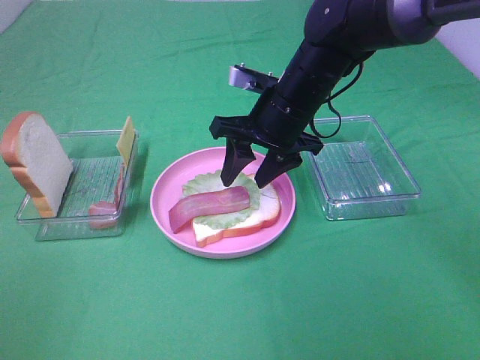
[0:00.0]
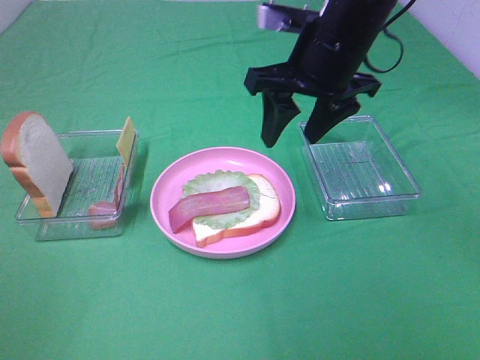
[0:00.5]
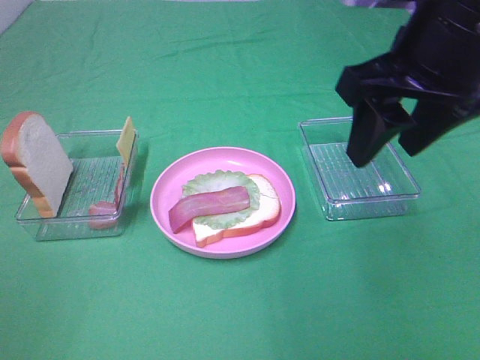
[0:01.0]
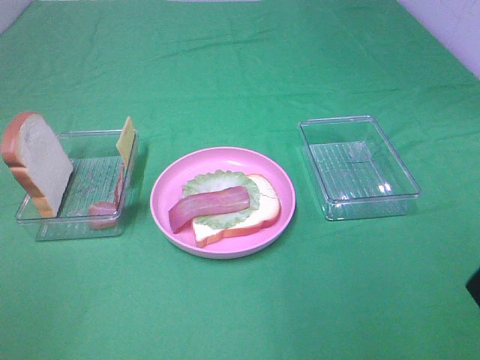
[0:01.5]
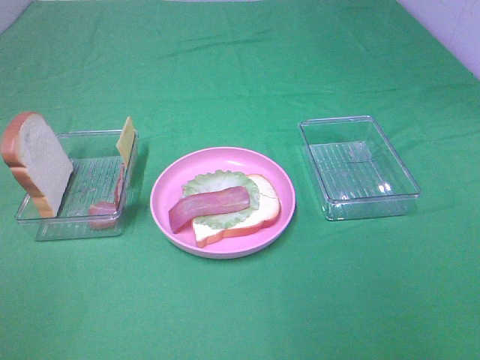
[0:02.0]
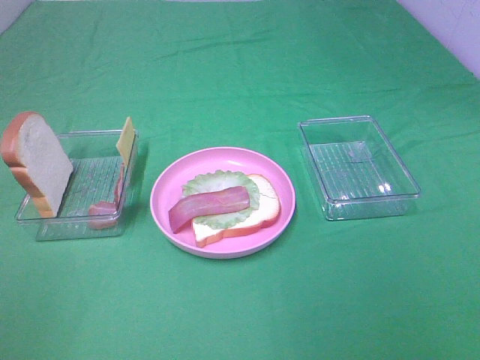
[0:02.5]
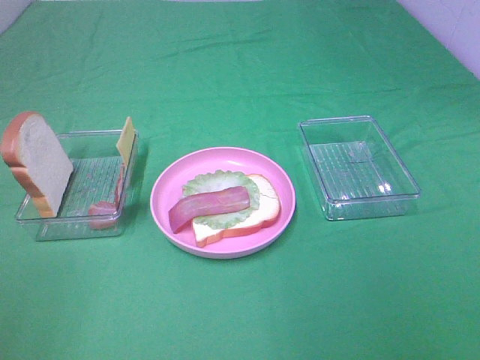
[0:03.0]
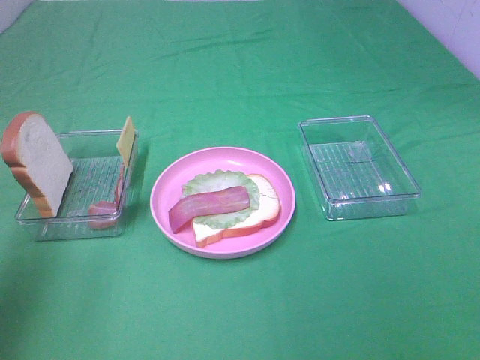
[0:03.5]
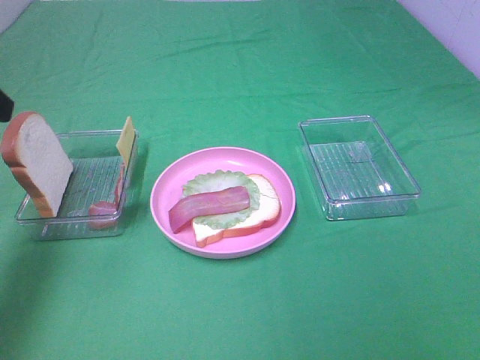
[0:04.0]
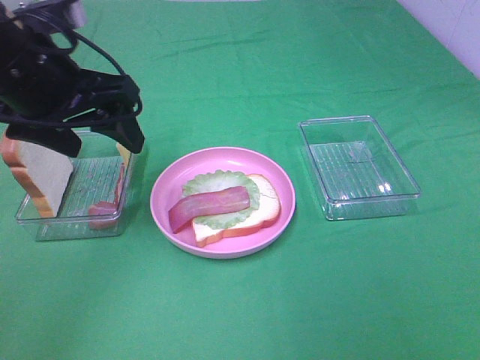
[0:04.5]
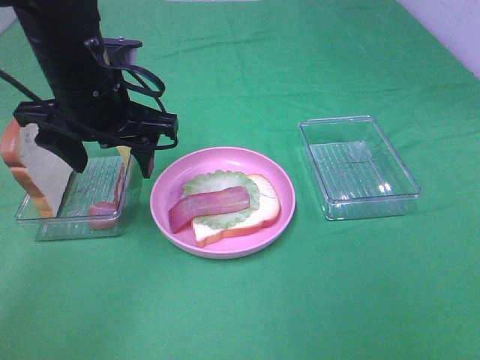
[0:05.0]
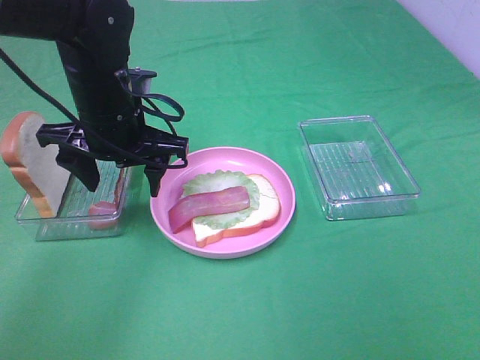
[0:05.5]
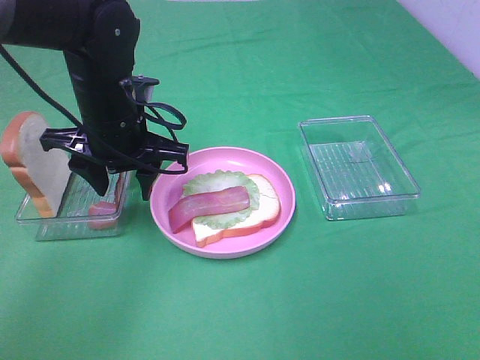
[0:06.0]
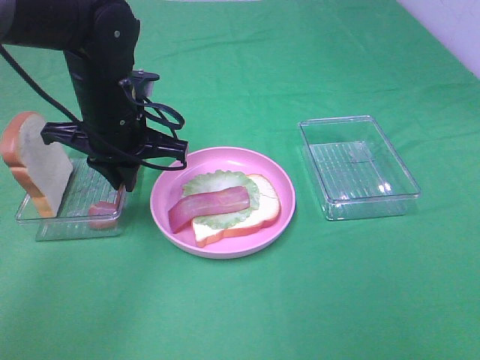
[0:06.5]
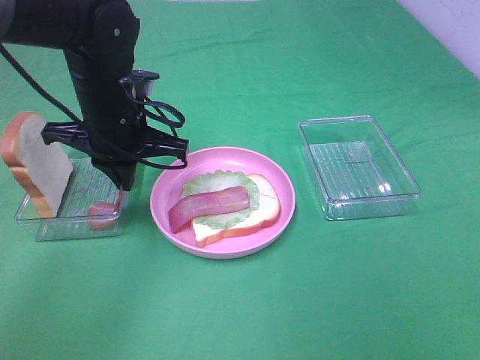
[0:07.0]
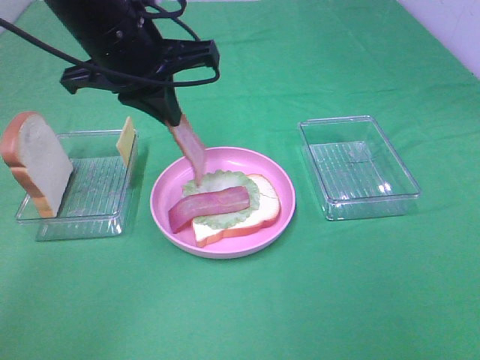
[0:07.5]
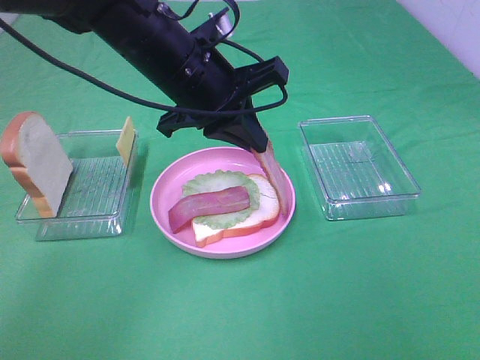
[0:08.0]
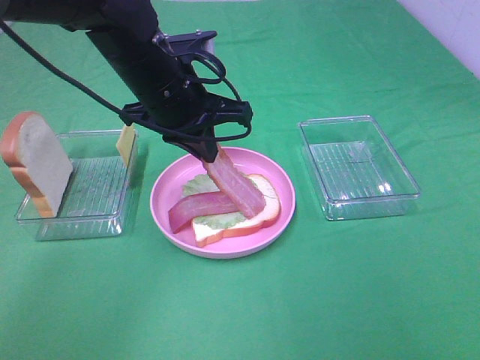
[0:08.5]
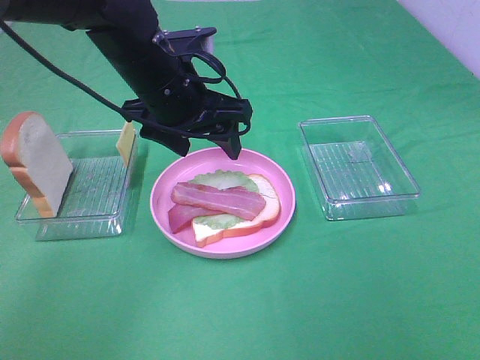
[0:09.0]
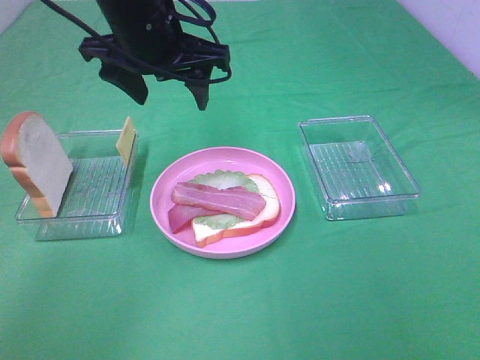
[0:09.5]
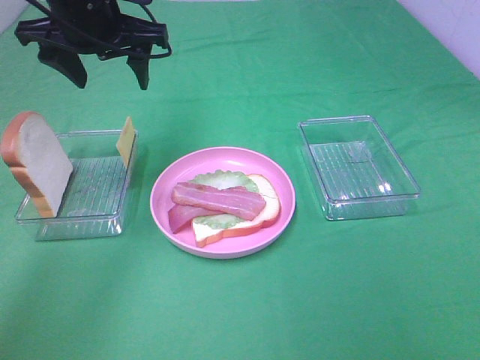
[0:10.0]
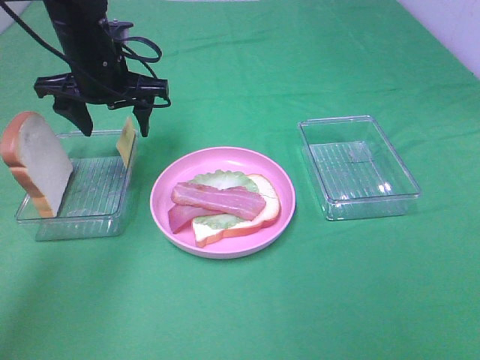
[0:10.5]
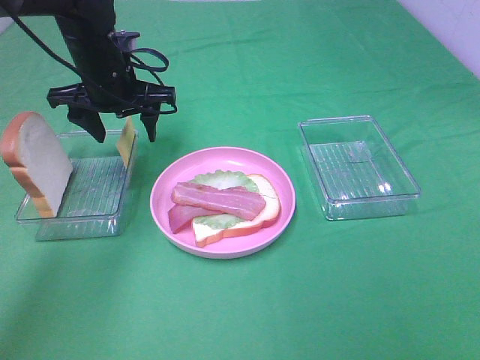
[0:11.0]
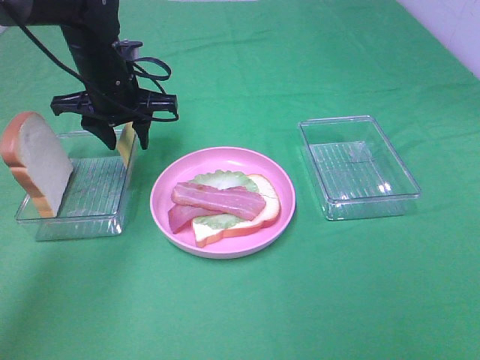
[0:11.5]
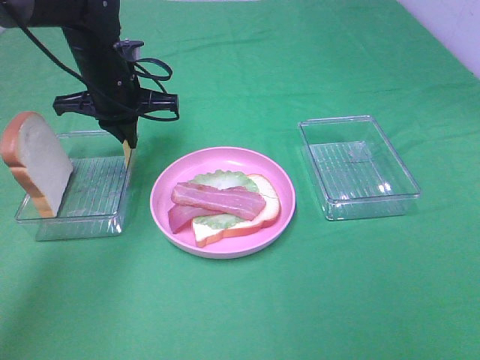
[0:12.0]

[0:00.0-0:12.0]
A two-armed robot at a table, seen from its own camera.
Task of the whole recording: Make sandwiches.
Step, 0:00.5 to 0:07.0: Left hand:grab the bacon.
Step, 0:07.5 to 0:09.0: Left hand:place bacon on bacon.
Step, 0:09.5 to 0:12.0: Left hand:grab the cheese slice.
0:00.0 to 0:02.0: The right gripper travels backward and to the right by approximately 40 cm.
0:02.0 to 0:04.0: The left gripper shifts approximately 25 cm forward.
0:04.0 to 0:06.0: The left gripper heads to the right, downward and forward, covering about 25 cm.
0:06.0 to 0:08.0: The left gripper goes approximately 5 cm to the right, and closes.
0:08.0 to 0:10.0: The left gripper goes some 15 cm to the left and forward, and opens up.
0:10.0 to 0:12.0: The left gripper heads downward, covering about 10 cm, and closes its fingers.

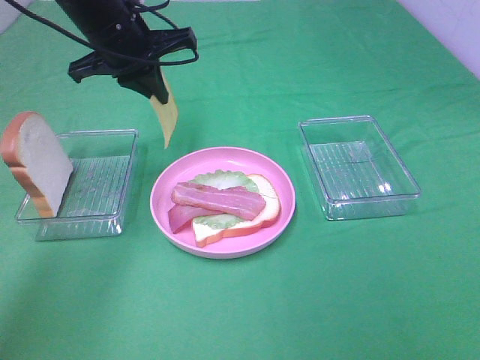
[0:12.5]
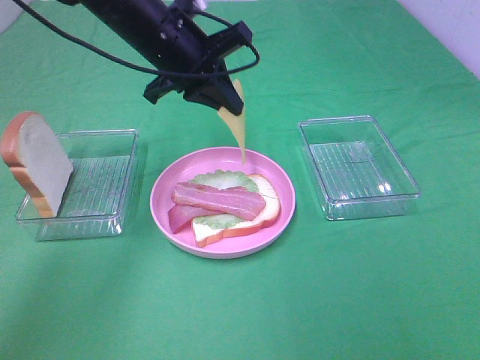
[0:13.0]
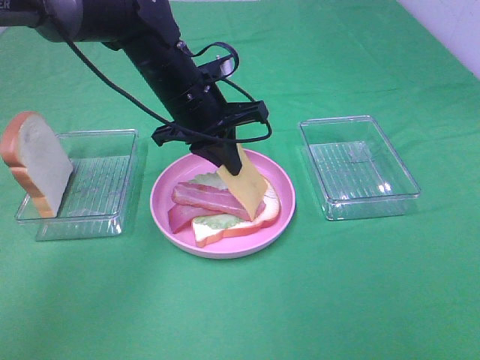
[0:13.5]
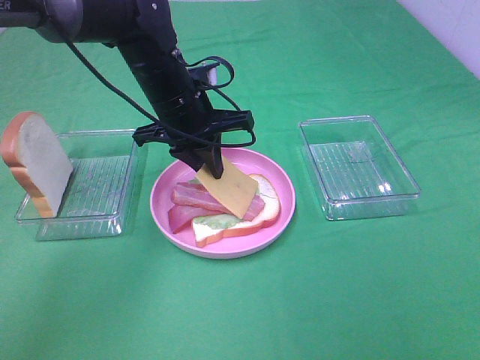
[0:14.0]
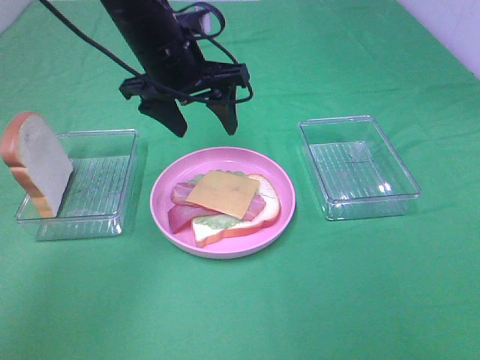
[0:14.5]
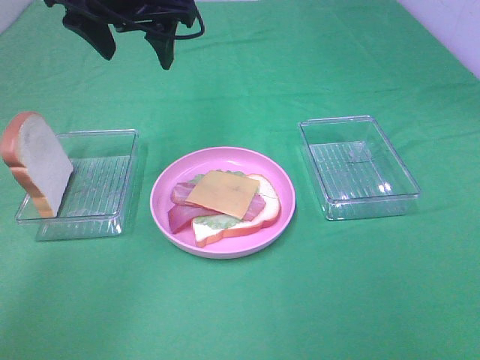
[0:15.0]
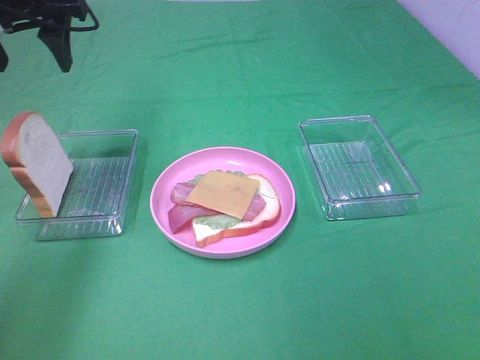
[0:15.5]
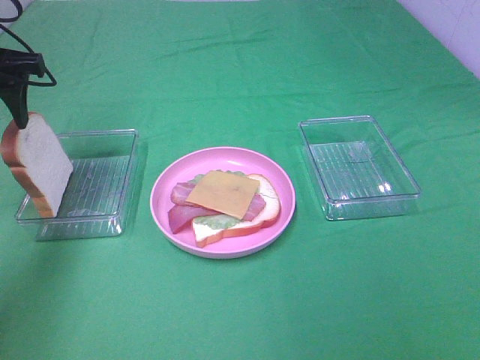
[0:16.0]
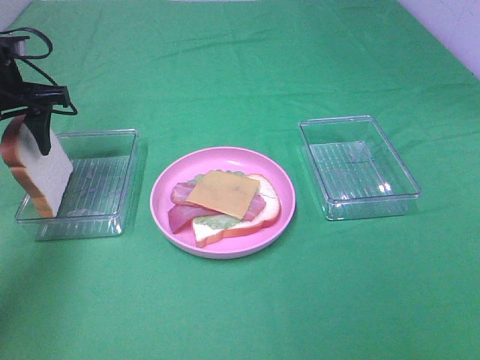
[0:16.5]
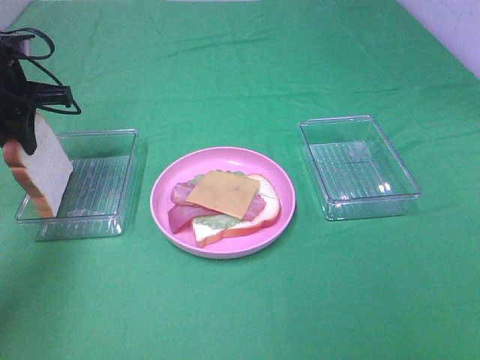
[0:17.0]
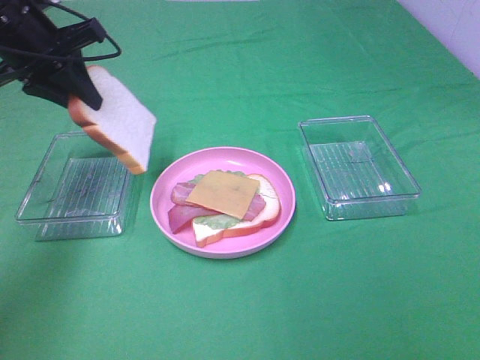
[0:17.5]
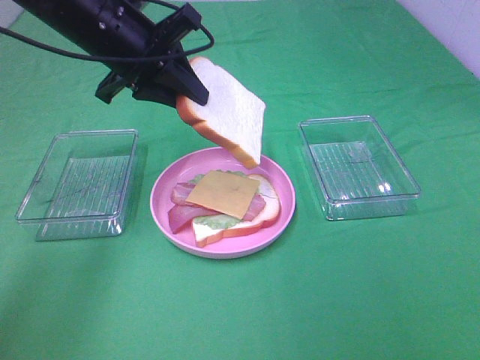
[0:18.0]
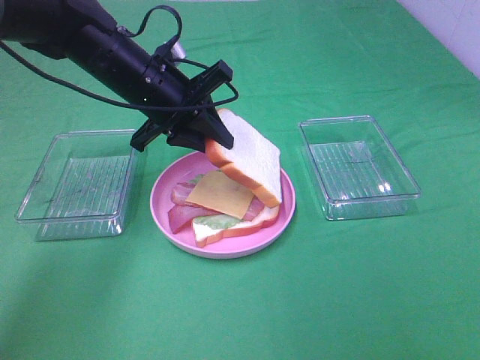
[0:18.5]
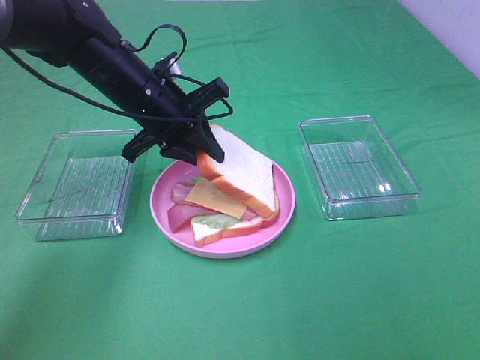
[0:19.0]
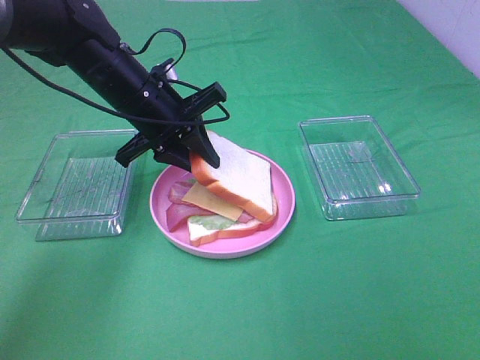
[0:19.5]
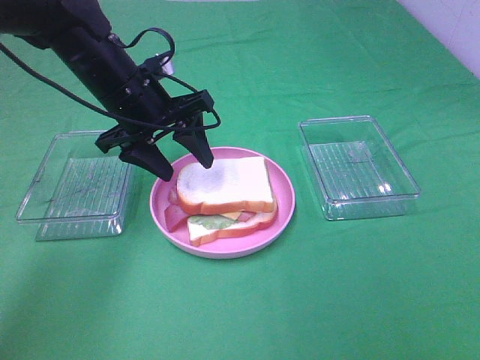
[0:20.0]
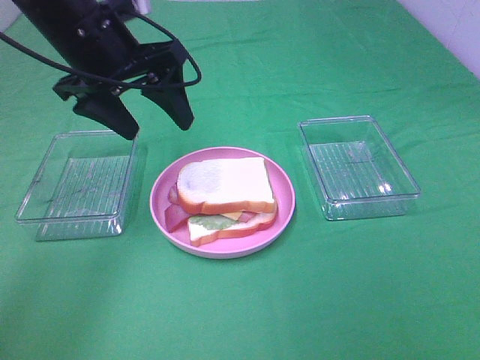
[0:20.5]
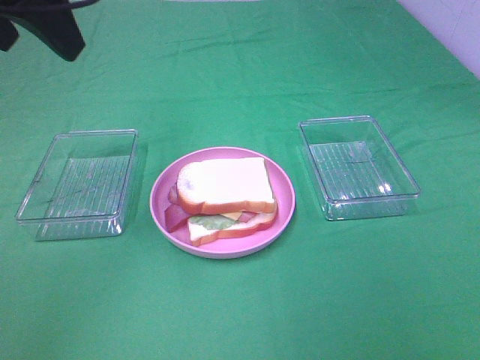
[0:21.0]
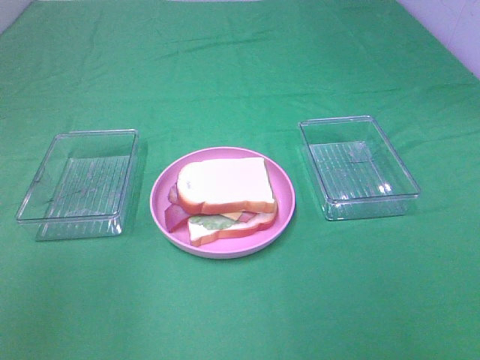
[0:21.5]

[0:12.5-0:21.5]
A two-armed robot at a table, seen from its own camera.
Task of the whole recording: Make sandwiches.
Step, 0:12.5 to 0:14.0: Left hand:place the cheese slice on top of the bacon.
Step, 0:14.5 to 0:17.0: Left hand:grab the bread slice.
Step, 0:17.5 to 0:20.0: Left hand:place the bread slice on the cheese slice.
0:12.5 to 0:14.5: The left gripper heads to the right, covering approximately 5 cm, travels downward and back again, some 10 cm each way, and opens its fingers.
0:14.5 to 0:17.0: The left gripper travels to the left by about 20 cm, and closes.
0:17.0 to 0:19.5: The left gripper moves to the right, some 15 cm.
0:19.5 to 0:21.5: The left gripper shifts some 35 cm backward, upward and to the left, and opens up.
